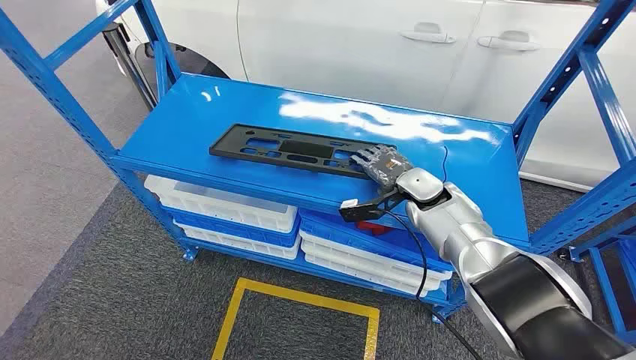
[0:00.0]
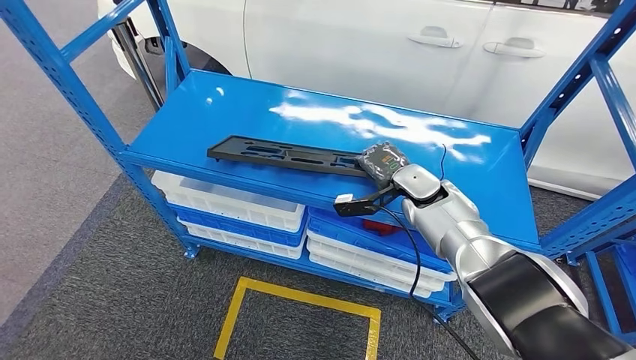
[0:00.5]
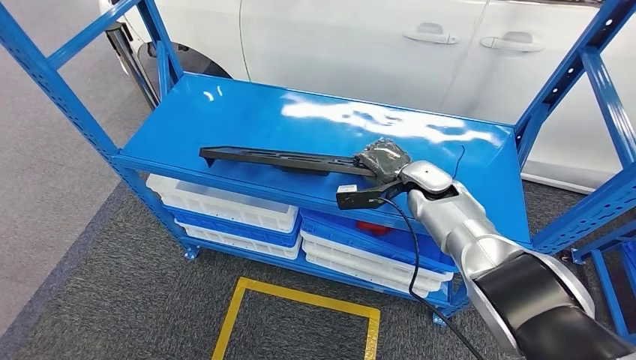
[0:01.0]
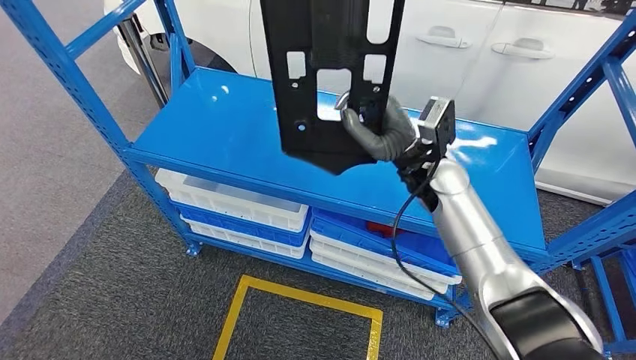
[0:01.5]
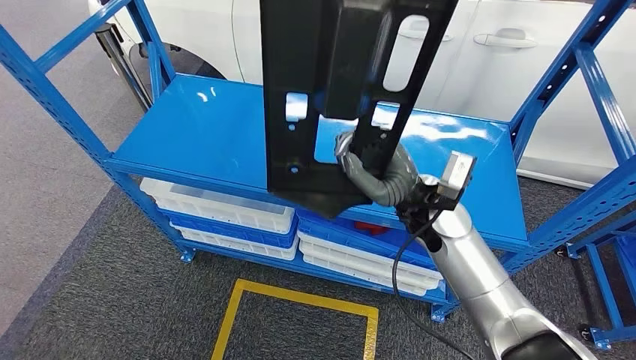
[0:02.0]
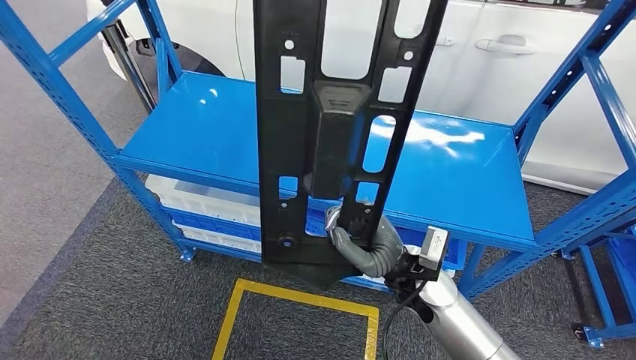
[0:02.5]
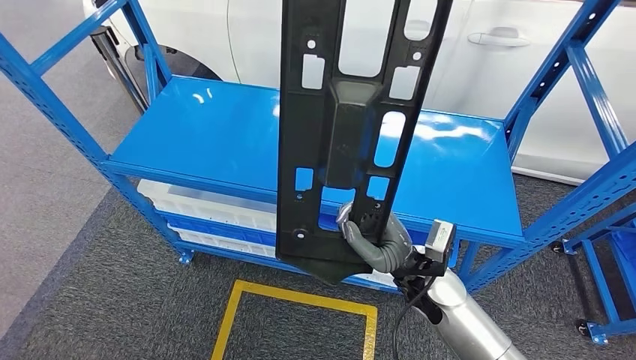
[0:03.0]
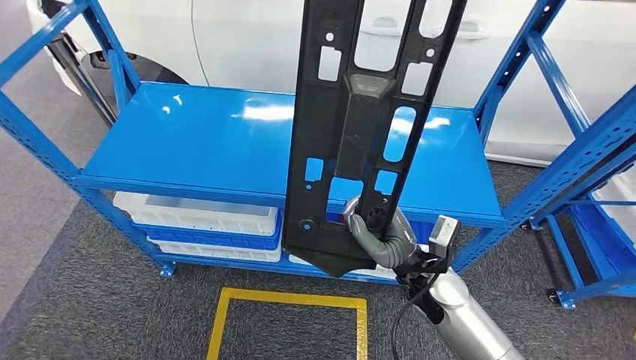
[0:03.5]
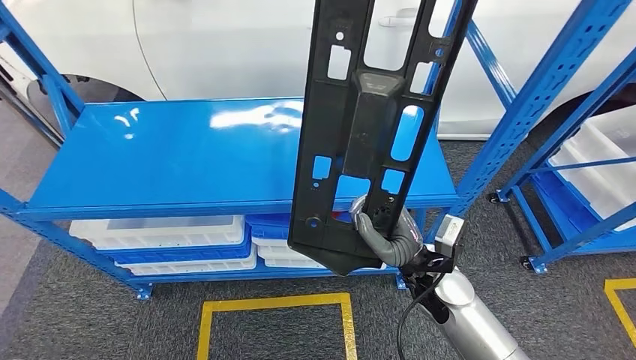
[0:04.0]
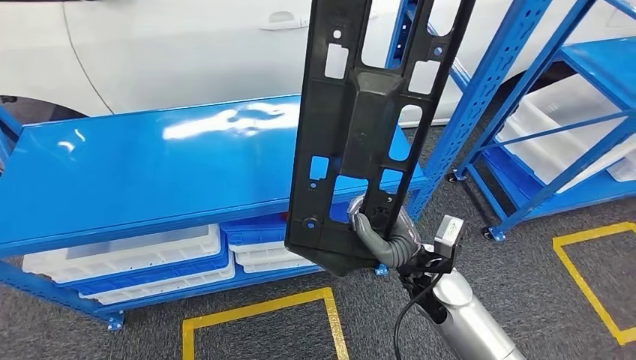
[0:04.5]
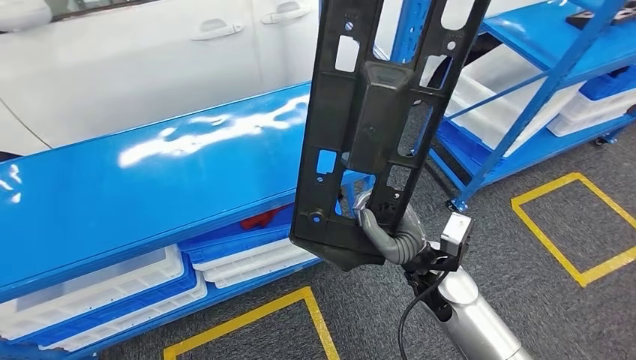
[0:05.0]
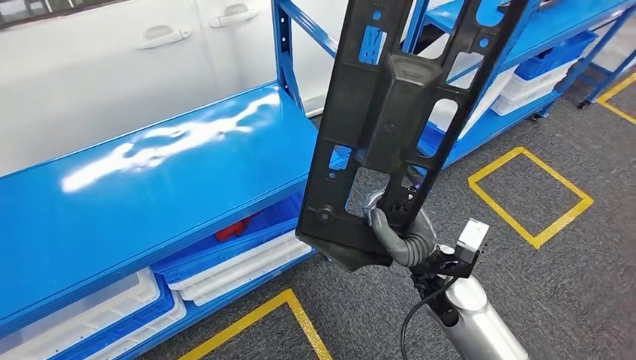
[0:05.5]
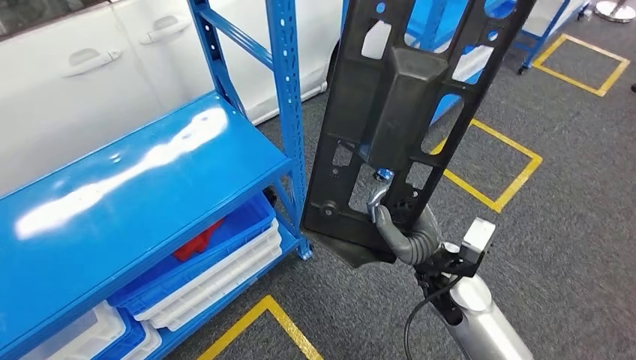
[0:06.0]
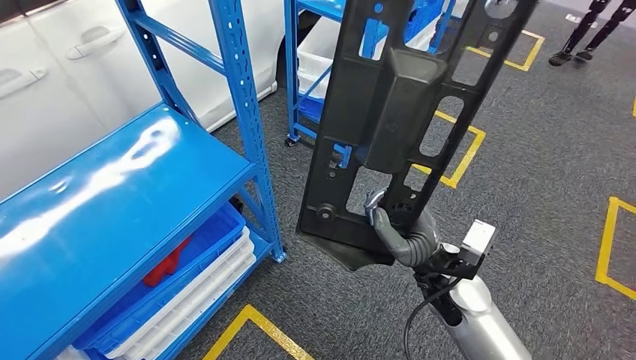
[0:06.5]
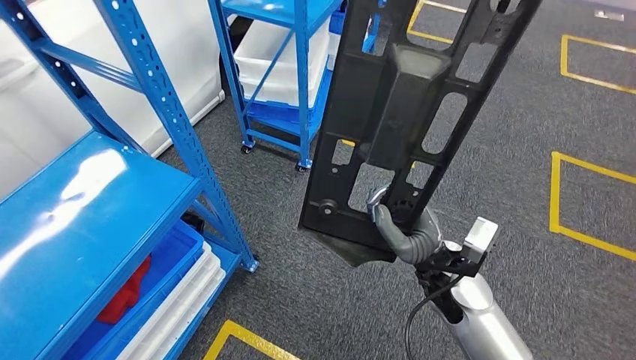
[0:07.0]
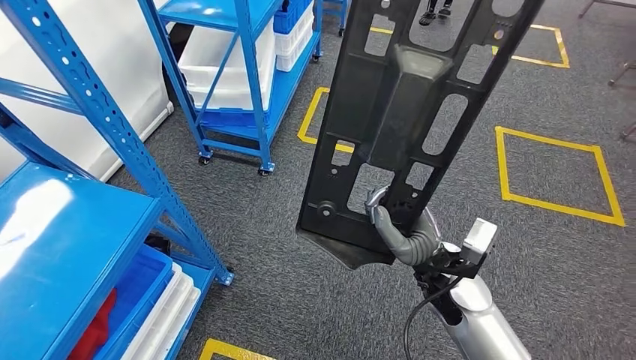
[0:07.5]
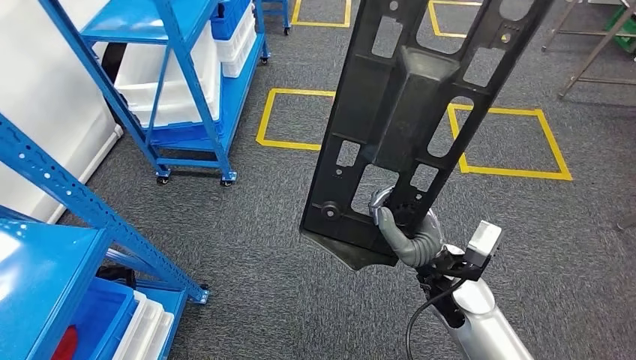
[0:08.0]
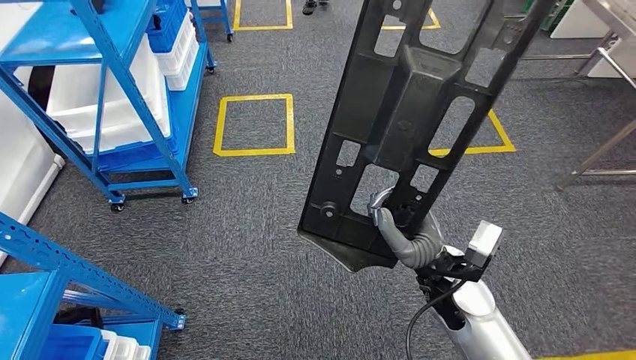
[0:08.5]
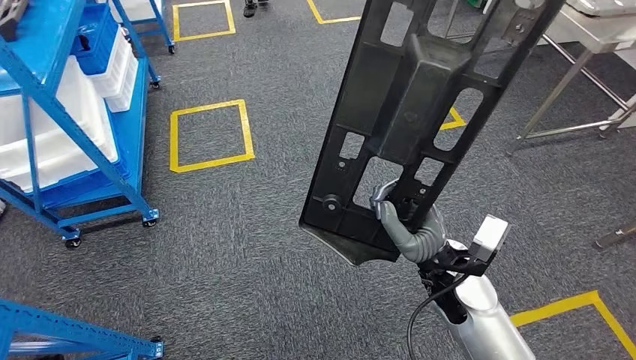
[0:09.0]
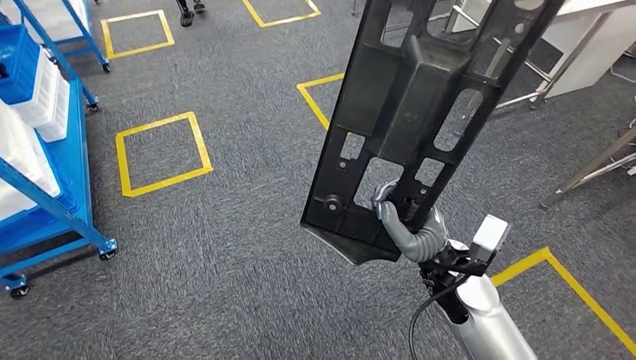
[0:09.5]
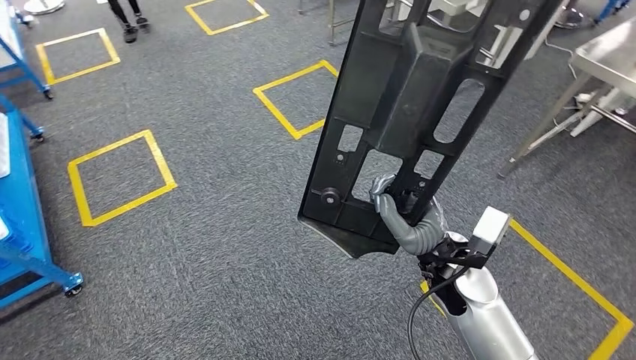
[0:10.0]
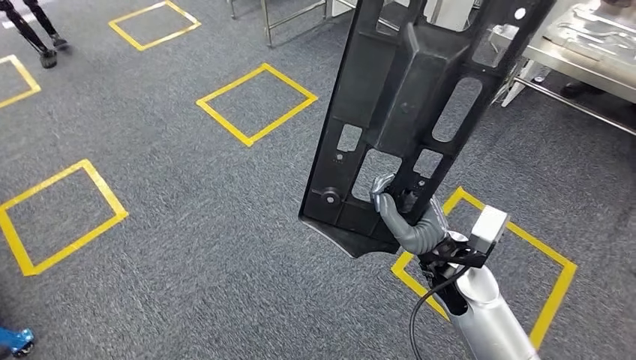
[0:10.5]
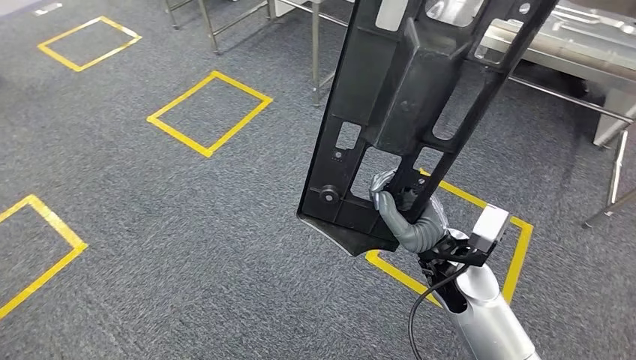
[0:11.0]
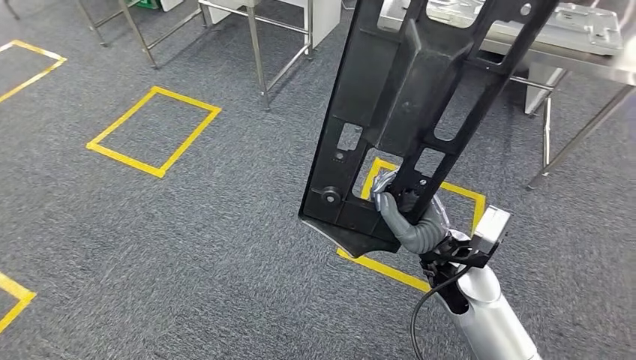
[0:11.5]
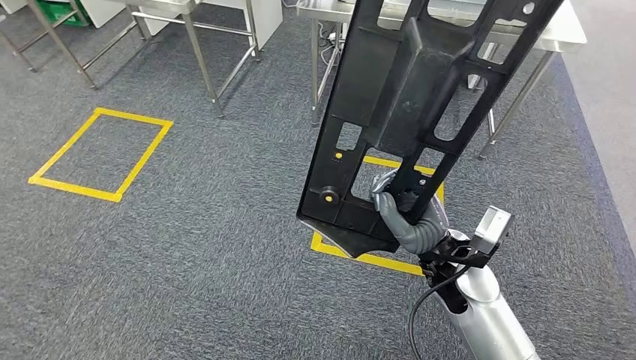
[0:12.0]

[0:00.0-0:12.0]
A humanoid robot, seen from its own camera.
Step, 0:00.0 to 0:03.5: Pick up the large material from the shelf.

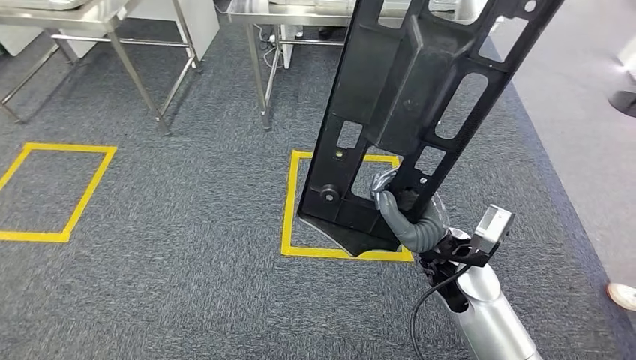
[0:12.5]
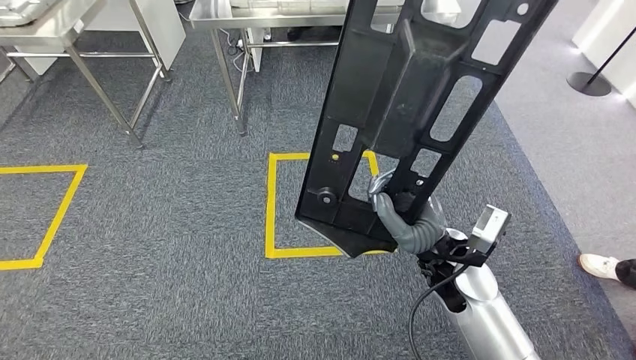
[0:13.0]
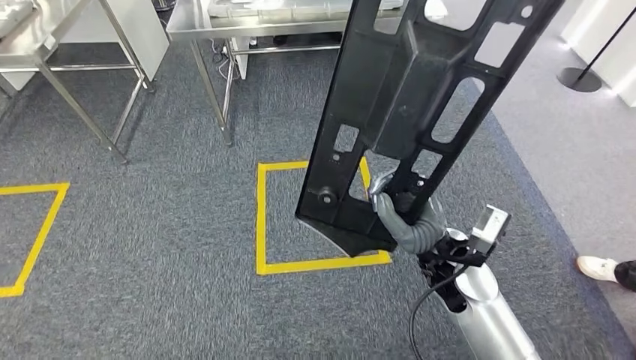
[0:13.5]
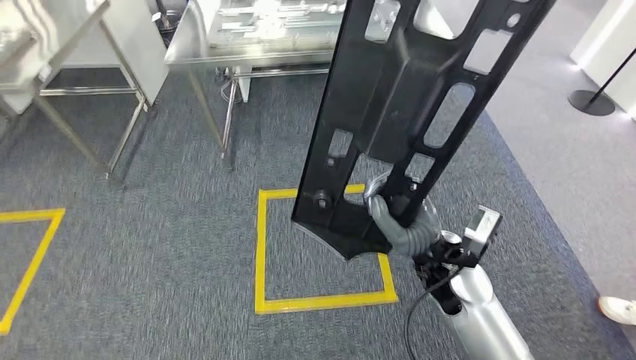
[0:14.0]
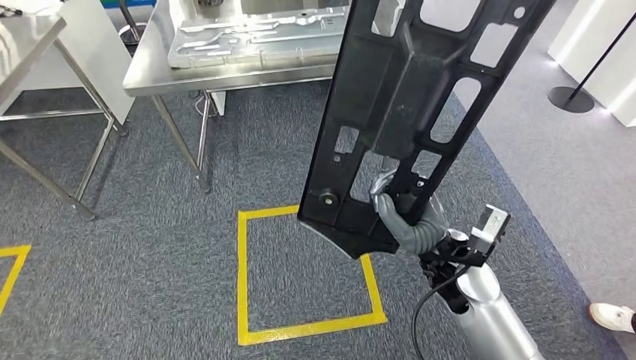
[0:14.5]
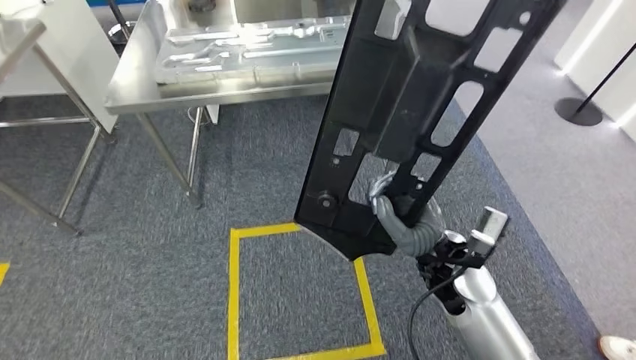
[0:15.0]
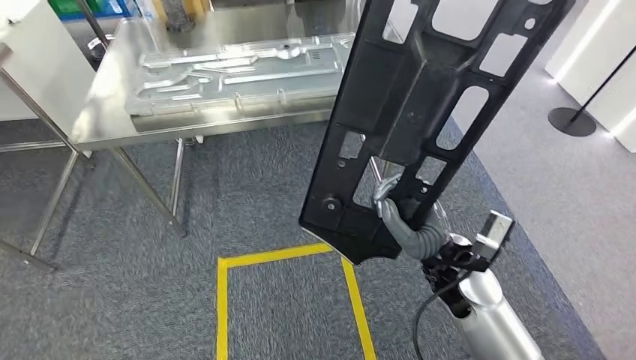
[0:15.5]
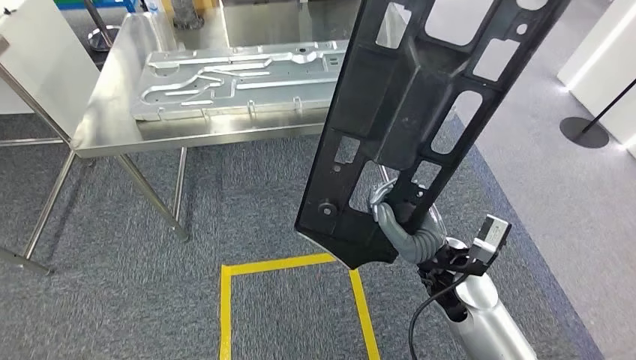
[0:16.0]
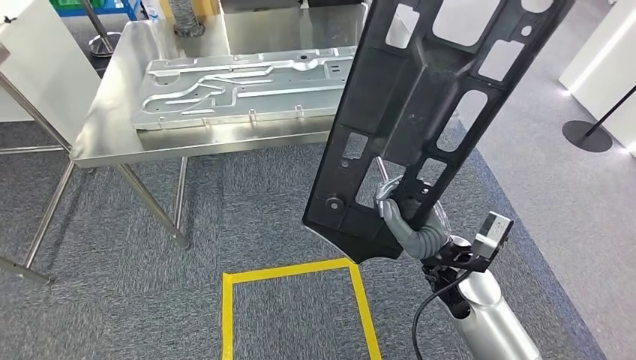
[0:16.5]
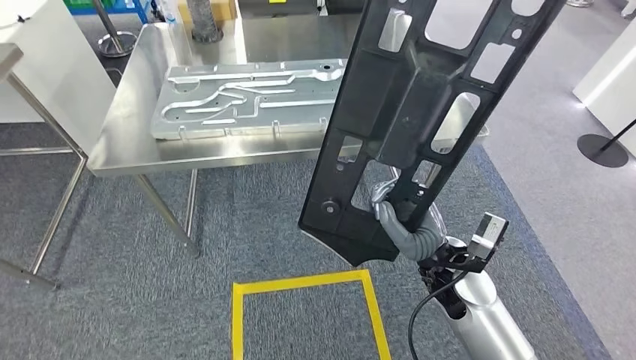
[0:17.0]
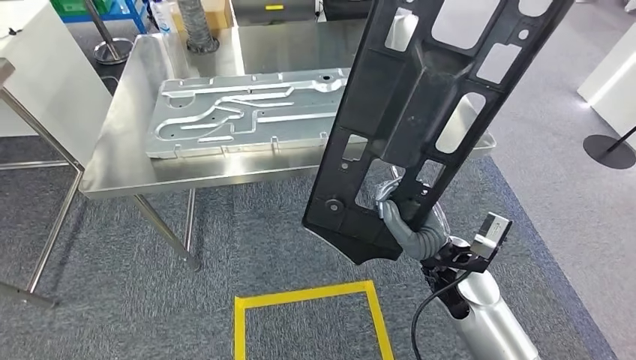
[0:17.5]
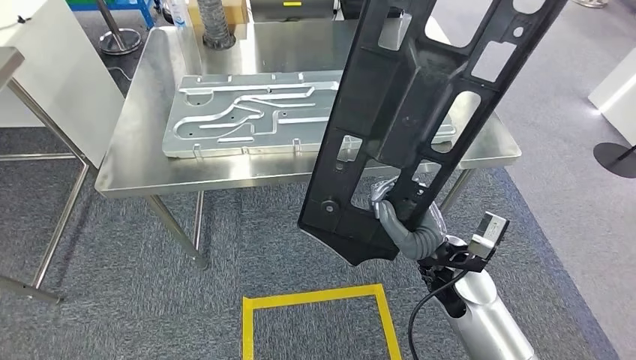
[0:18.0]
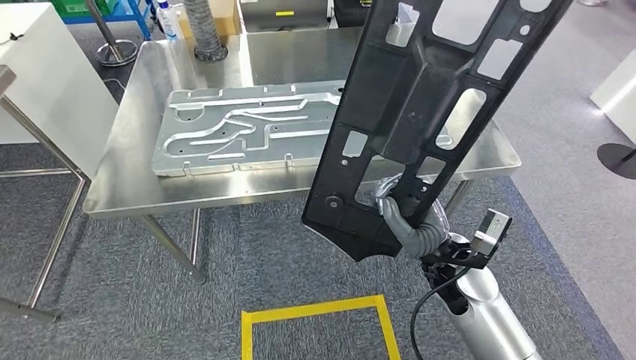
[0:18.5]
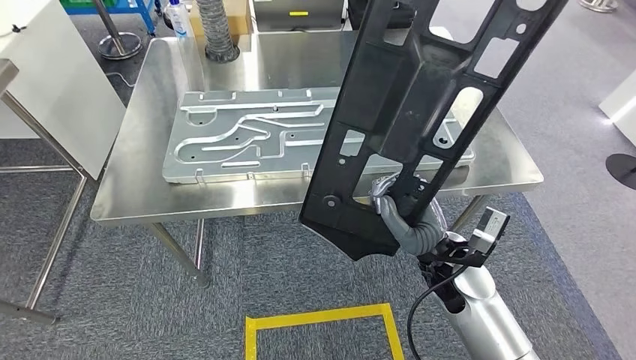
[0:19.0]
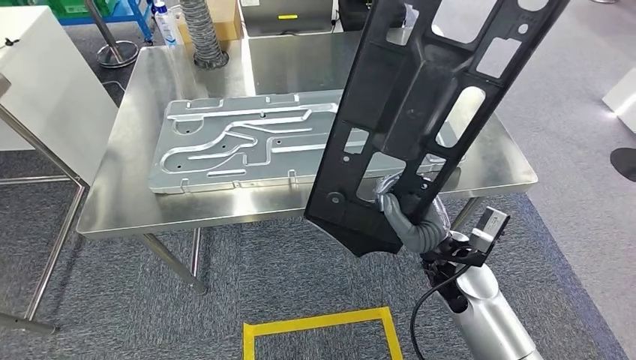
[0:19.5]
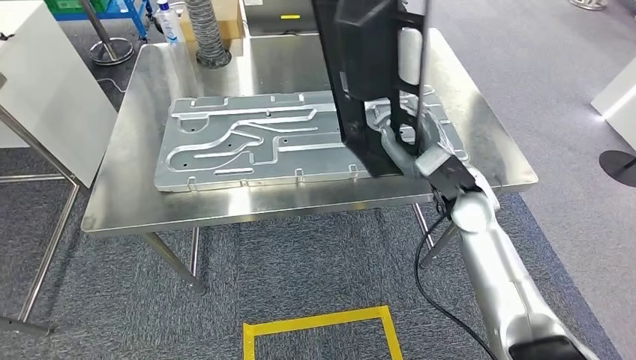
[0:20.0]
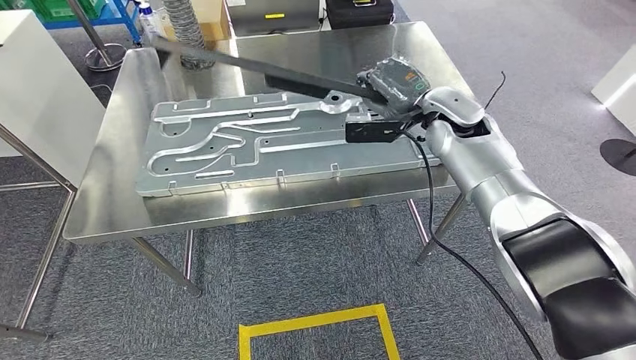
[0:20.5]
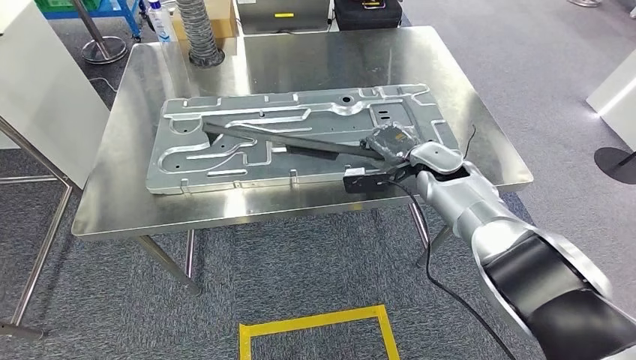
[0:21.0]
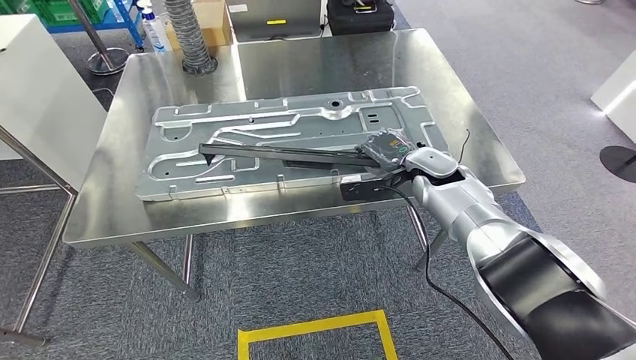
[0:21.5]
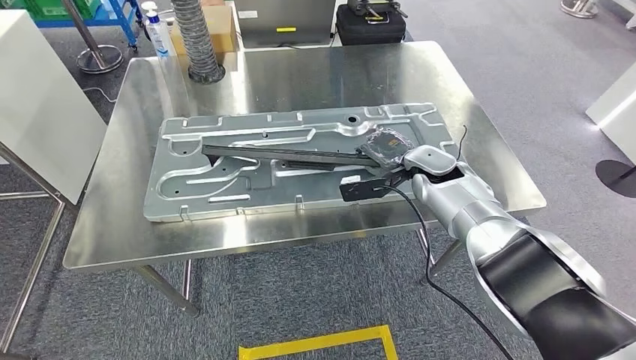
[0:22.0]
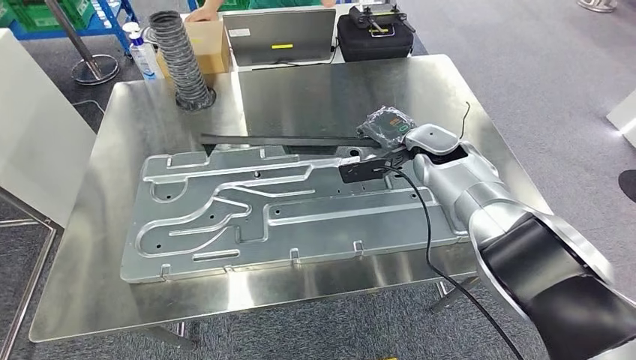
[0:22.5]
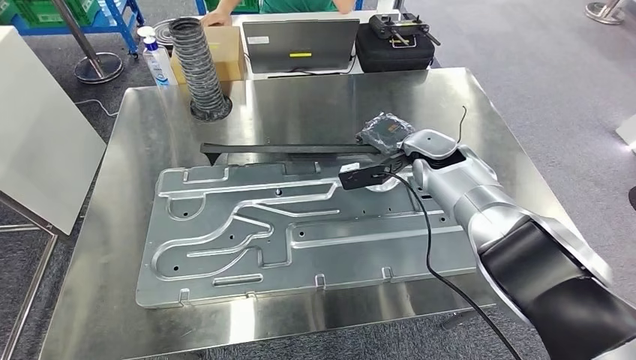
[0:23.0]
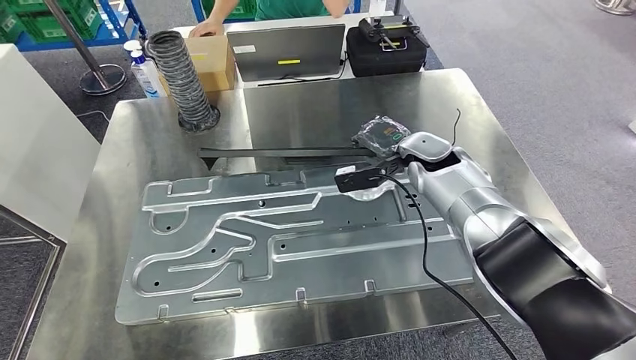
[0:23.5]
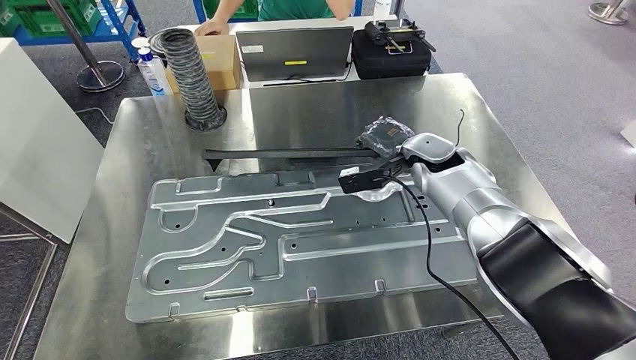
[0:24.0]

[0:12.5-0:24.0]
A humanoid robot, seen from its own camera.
Step, 0:12.5 to 0:16.5: Move the large material to the workbench.
